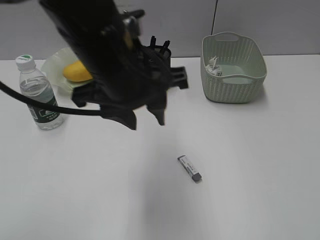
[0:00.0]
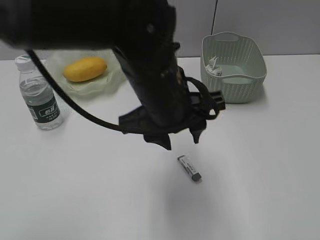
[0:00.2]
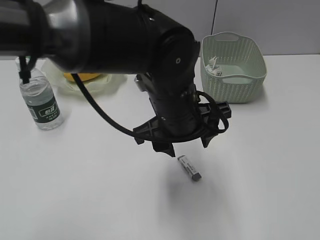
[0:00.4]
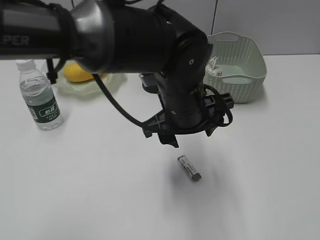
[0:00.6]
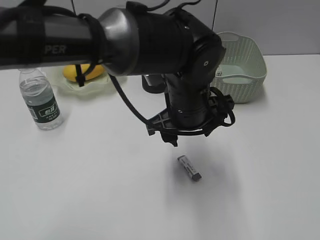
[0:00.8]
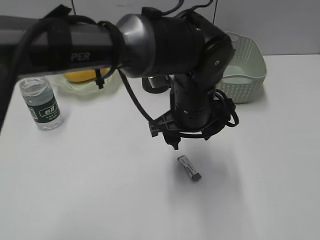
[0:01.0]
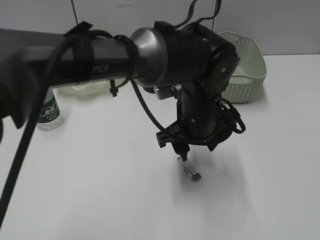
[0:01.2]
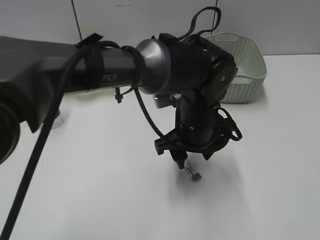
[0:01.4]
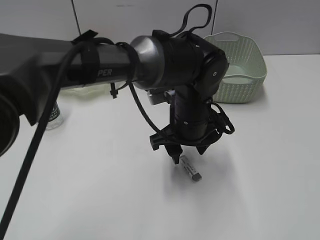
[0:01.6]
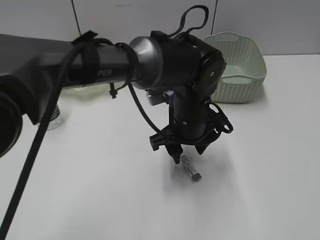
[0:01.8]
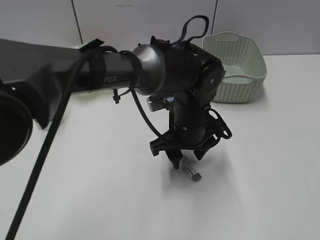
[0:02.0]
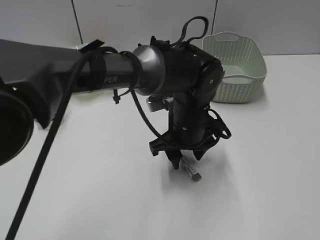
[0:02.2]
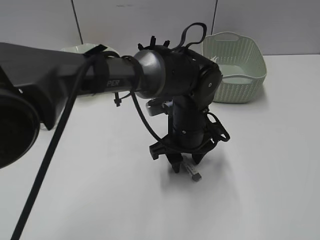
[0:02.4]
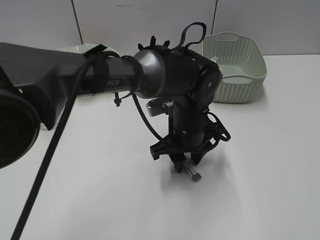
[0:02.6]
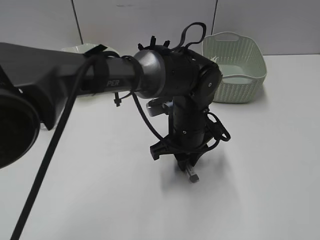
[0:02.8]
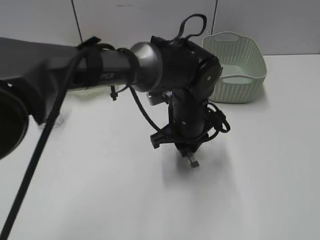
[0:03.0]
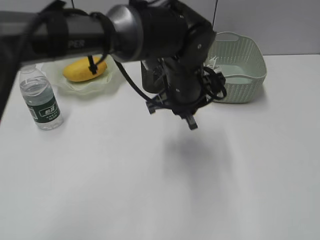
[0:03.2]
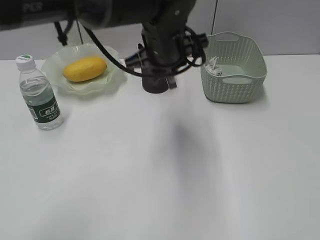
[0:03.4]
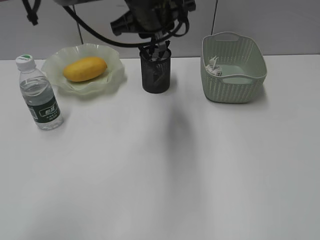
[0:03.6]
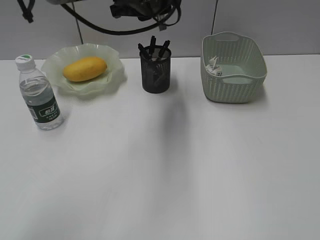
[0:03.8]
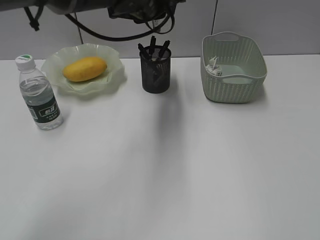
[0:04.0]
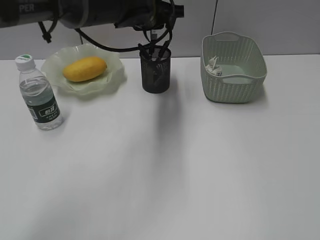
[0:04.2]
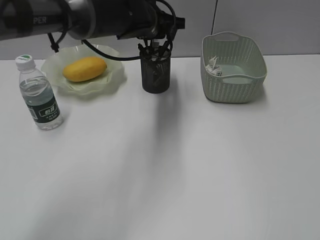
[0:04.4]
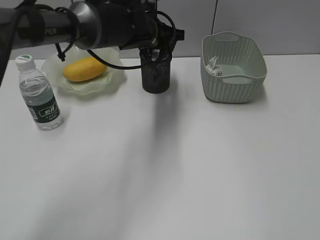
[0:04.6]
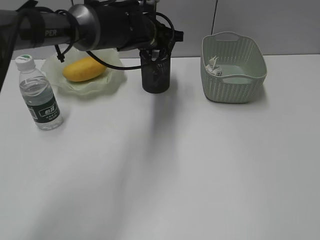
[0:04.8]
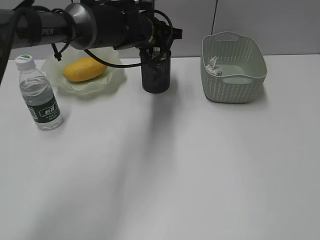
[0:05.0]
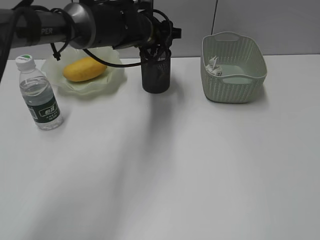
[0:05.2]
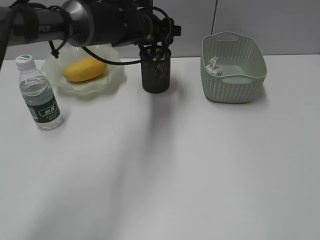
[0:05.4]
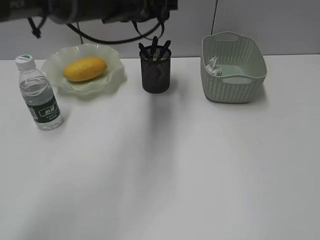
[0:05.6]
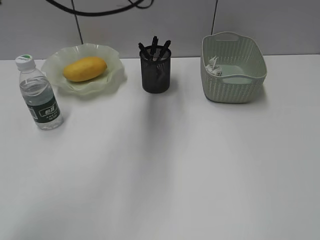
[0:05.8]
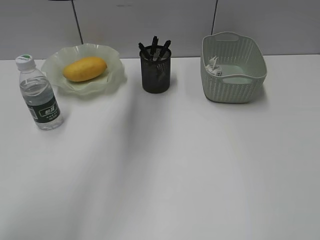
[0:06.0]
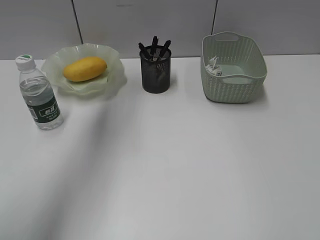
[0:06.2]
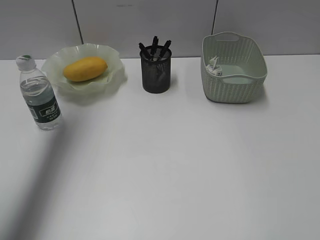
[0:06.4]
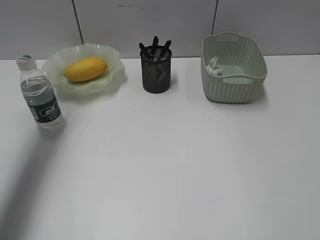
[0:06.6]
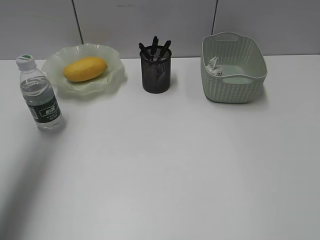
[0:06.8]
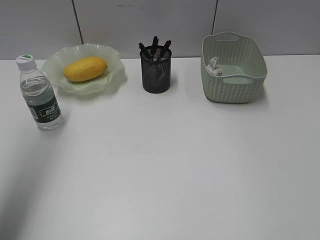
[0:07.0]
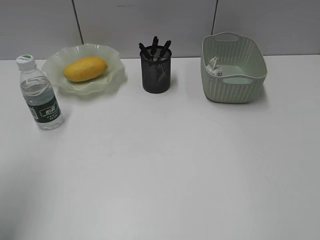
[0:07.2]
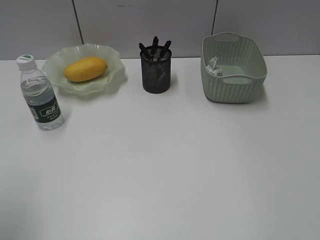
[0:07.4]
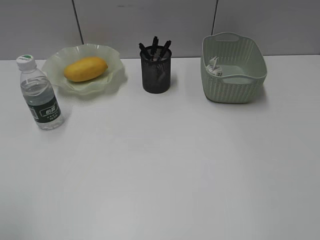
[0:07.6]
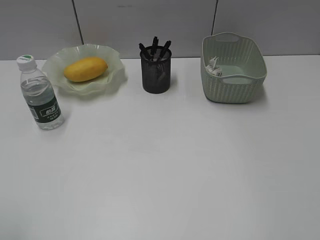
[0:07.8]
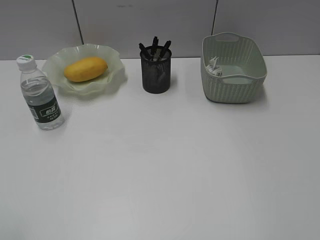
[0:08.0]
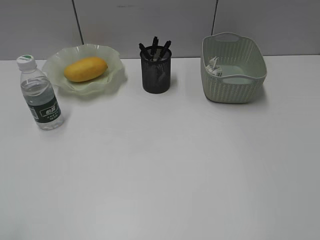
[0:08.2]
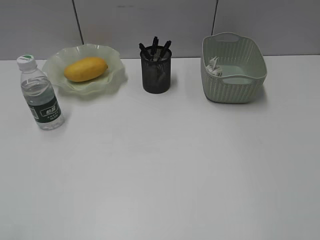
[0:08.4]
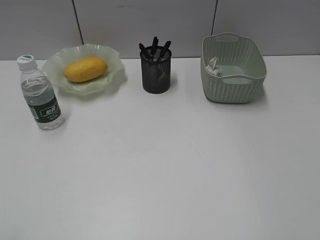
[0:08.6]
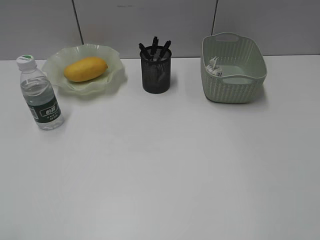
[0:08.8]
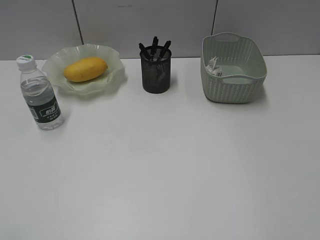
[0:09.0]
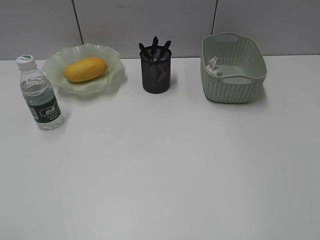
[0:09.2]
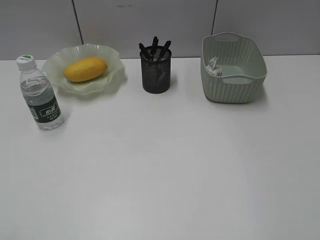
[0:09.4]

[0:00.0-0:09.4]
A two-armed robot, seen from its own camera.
Step, 0:00.0 to 0:02.8: Grasp the eraser with left gripper.
Step, 0:03.0 to 0:05.4: Place the eraser in pen holder with left gripper.
0:00.0 to 0:01.6: The left gripper heads downward, to the right and forward, covering some 20 cm.
0:01.6 to 0:03.2: The left gripper shifts by approximately 5 cm, and closes its fingers.
0:03.2 to 0:04.8: The left gripper is displaced forward and to the left by approximately 15 cm.
0:04.8 to 0:06.2: The left gripper moves upward and to the left, some 20 cm, and opens.
0:06.2 to 0:07.8: The left gripper moves backward, approximately 40 cm.

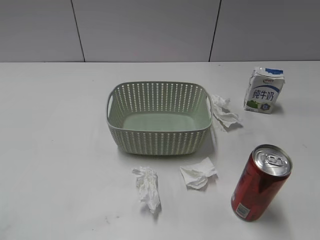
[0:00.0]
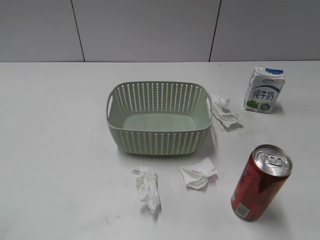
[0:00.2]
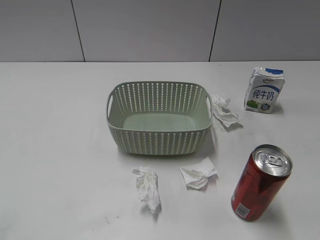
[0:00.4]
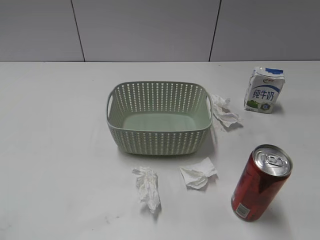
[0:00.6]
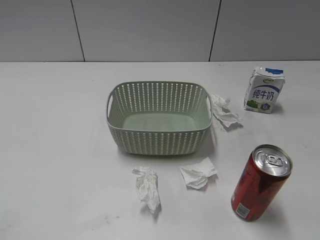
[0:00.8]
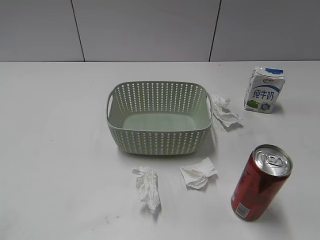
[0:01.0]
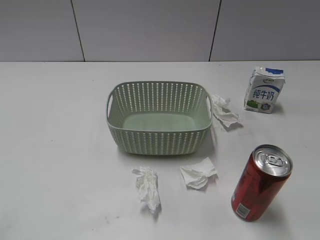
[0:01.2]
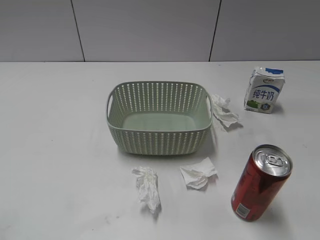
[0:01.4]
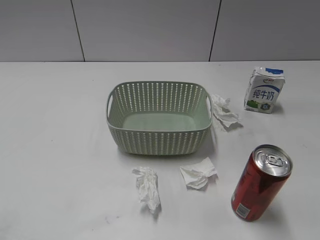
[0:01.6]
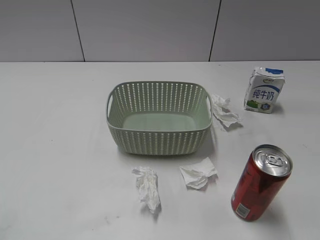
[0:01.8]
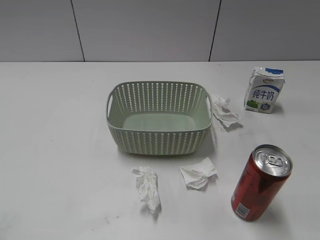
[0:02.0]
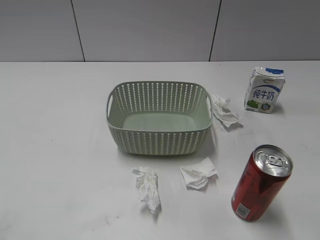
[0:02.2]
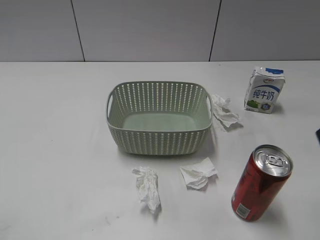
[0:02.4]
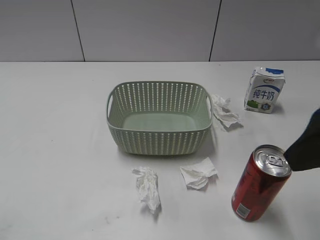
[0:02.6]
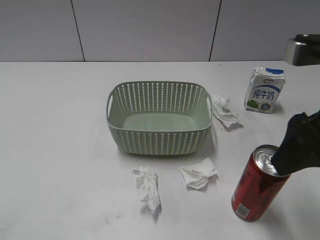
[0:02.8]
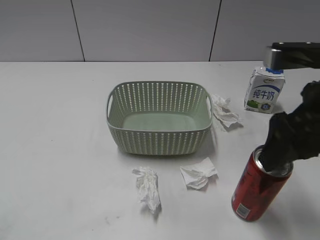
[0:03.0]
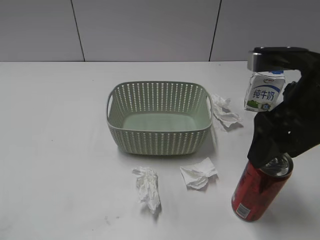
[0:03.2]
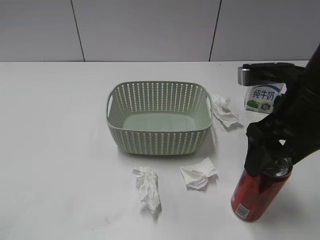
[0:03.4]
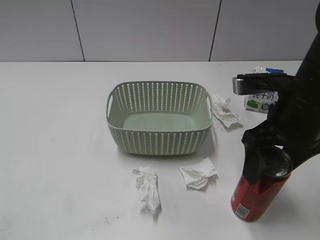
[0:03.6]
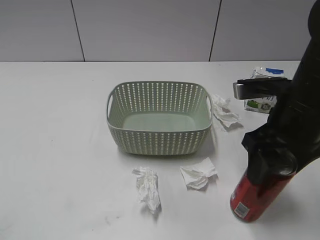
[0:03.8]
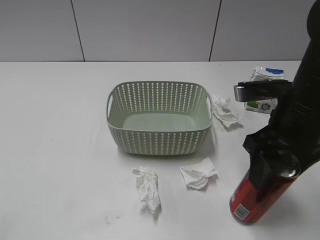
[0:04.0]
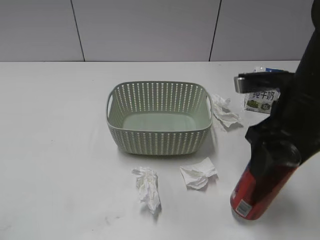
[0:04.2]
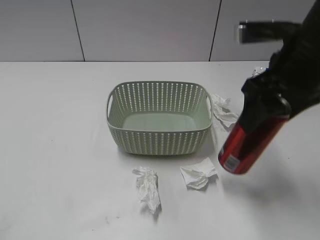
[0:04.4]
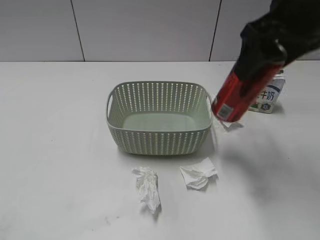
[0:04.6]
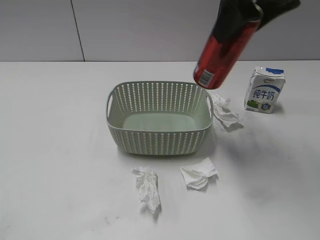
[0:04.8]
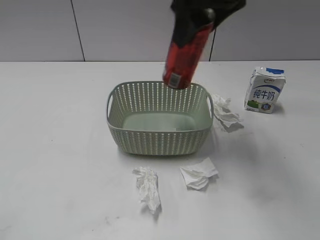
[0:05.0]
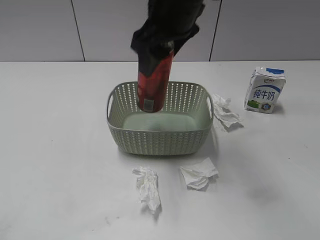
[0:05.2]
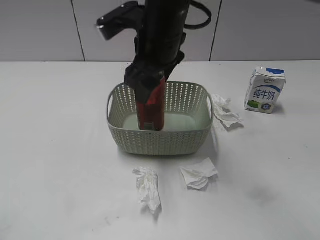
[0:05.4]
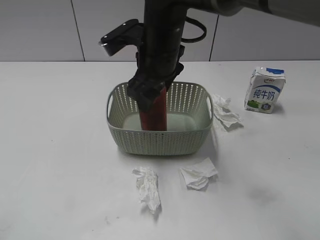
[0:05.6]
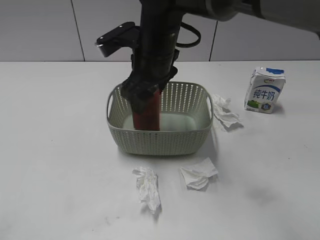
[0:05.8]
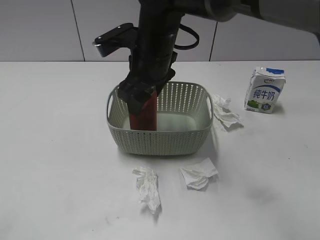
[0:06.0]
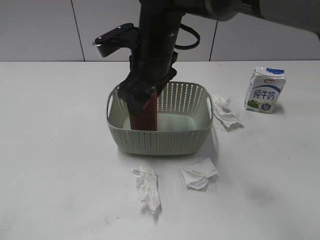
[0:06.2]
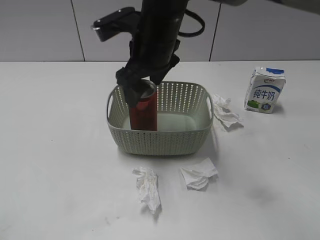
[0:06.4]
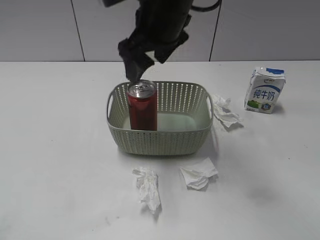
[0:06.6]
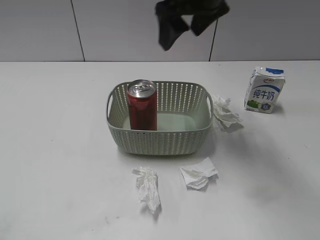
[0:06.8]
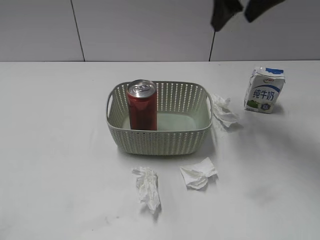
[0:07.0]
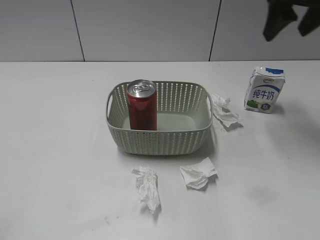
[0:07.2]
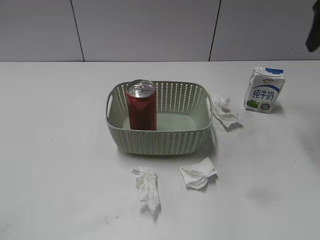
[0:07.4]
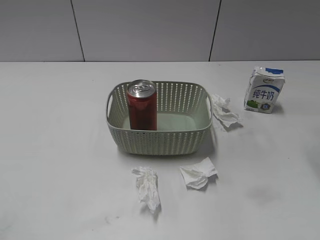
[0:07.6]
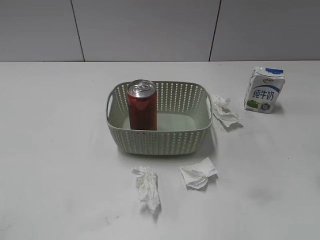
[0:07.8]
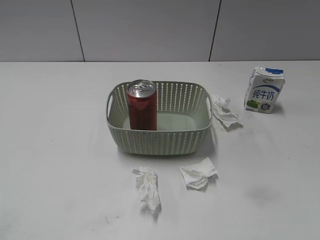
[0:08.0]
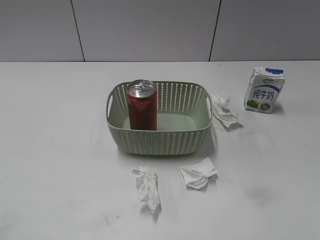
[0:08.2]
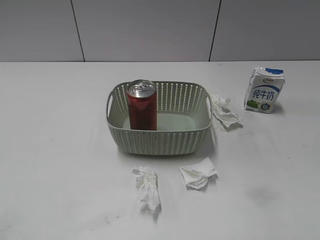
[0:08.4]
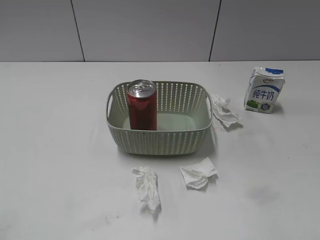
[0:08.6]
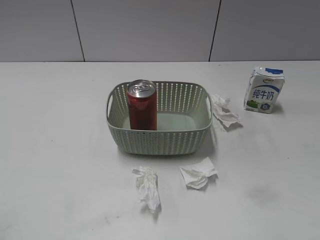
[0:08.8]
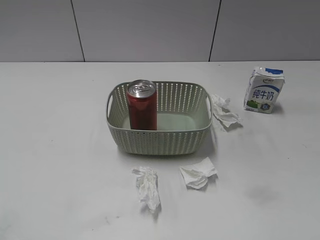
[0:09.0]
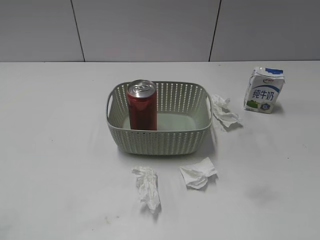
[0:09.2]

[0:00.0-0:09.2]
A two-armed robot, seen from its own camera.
Step, 0:02.4 to 0:03.8: Grasp the cola can with right gripper.
Step, 0:04.0 to 0:06.6: Place the cola can in the basket with right gripper.
0:01.6 to 0:03.0: The right gripper heads forward and to the left, covering some 20 cm.
0:03.0 to 0:04.6: The right gripper moves forward and upward, some 10 cm, and closes its fingers.
0:04.6 to 0:06.2: The right gripper shifts approximately 20 cm to the left and downward.
0:06.2 to 0:07.6: The right gripper is displaced to the right and upward by some 35 cm, and opens up.
